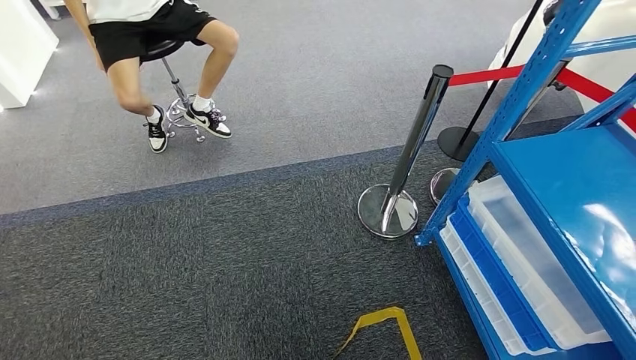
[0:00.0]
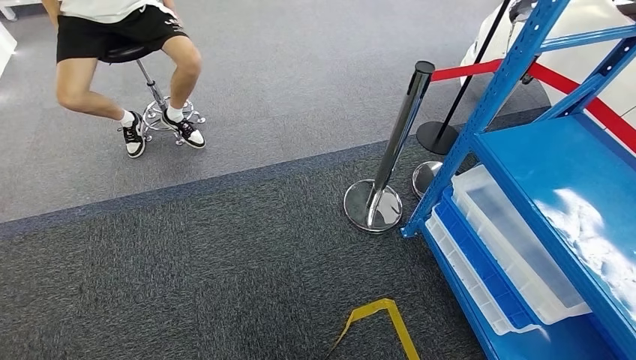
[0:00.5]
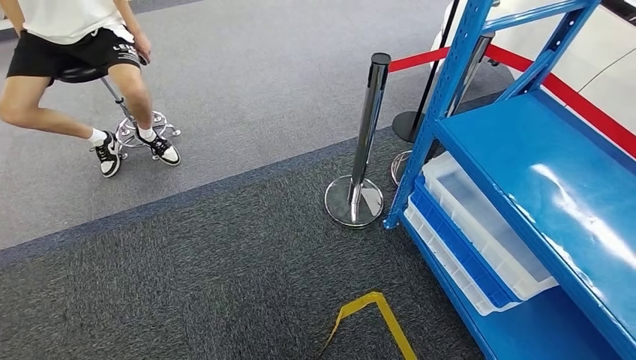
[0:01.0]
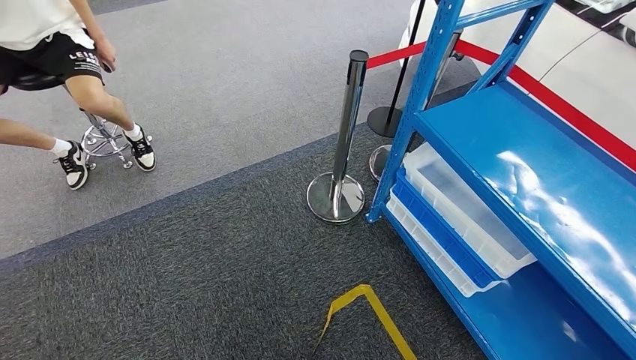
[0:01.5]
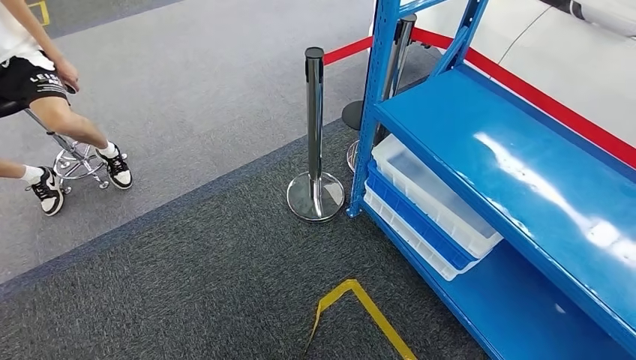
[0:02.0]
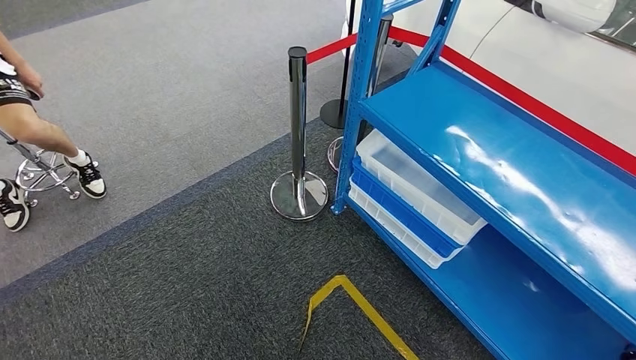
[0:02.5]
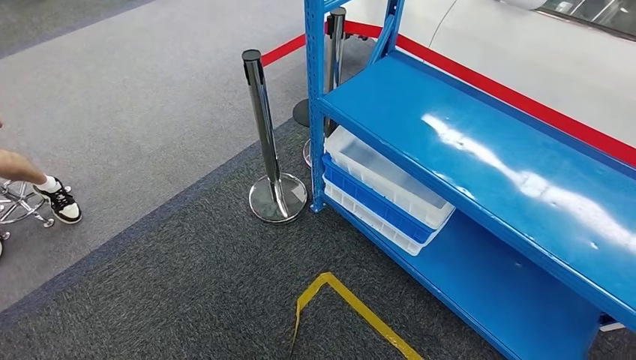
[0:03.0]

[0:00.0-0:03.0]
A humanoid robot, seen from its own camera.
Step, 0:00.0 to 0:03.0: Move to the initial position of the shelf.
